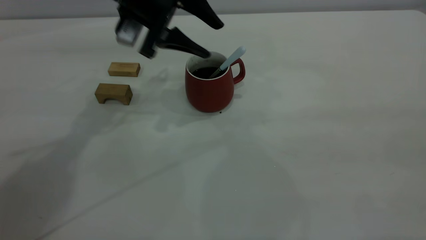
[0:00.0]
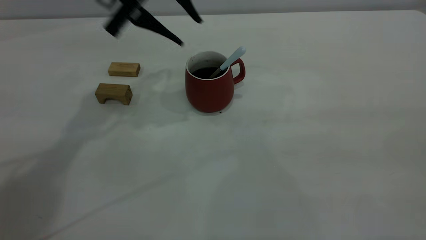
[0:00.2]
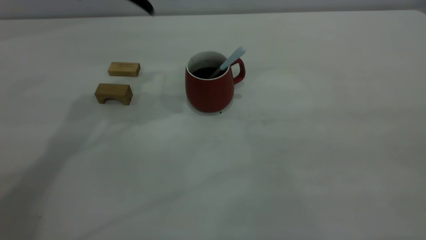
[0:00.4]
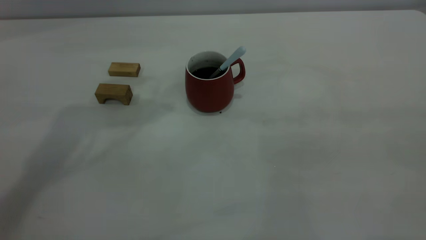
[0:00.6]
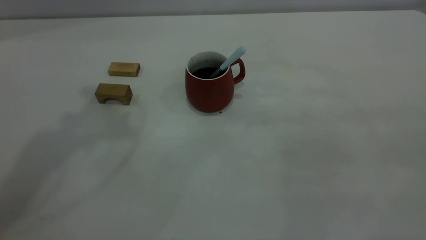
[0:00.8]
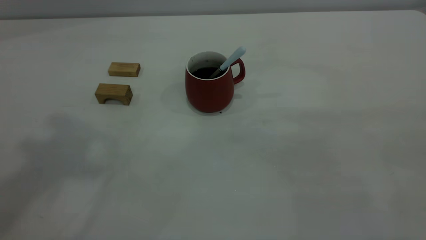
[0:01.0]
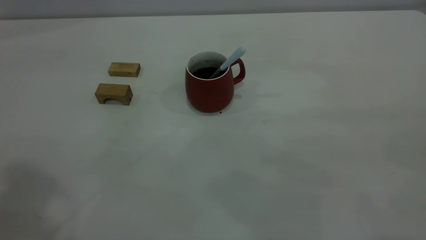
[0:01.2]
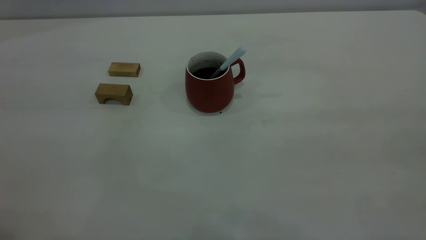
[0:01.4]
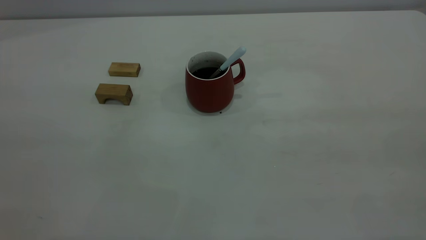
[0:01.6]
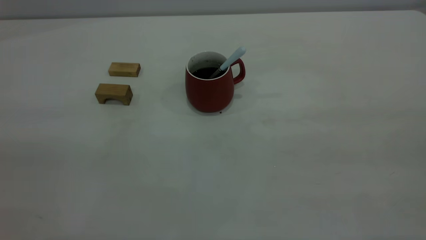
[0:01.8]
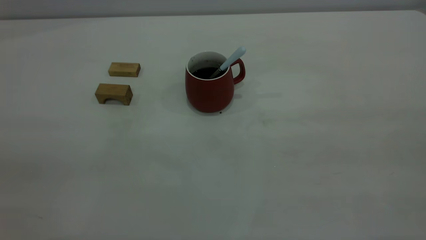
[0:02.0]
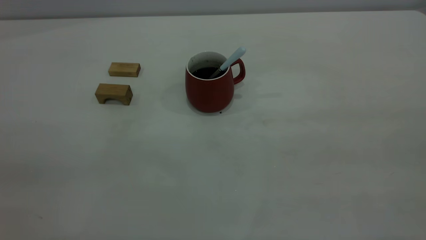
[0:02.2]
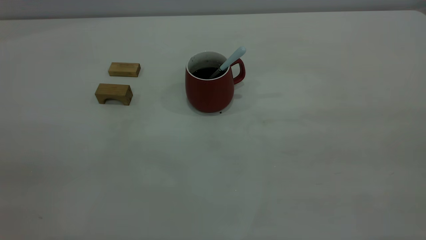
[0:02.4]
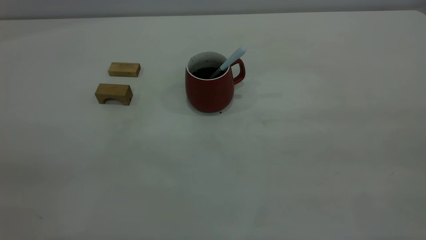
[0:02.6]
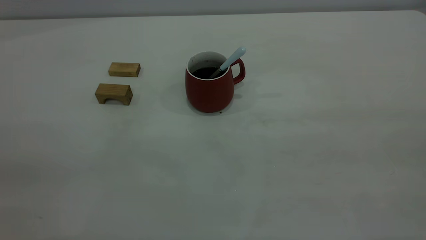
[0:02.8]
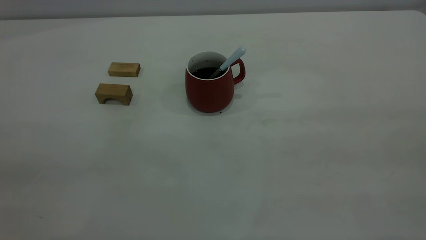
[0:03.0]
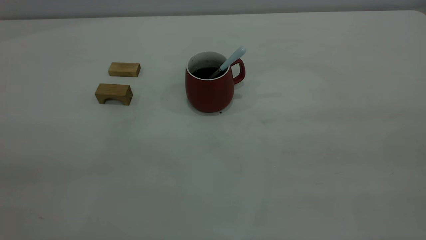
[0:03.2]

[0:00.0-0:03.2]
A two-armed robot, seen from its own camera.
0:00.0 to 0:01.6: The left gripper travels backward, upward and to the left by about 50 cm, and closes.
